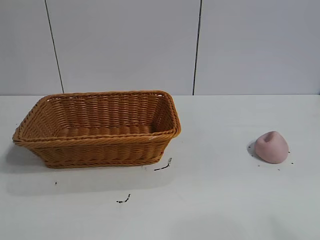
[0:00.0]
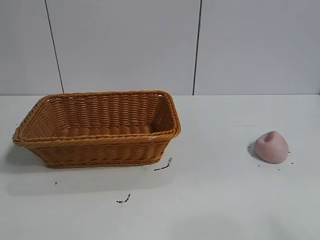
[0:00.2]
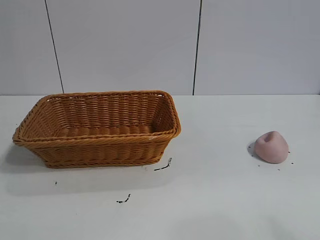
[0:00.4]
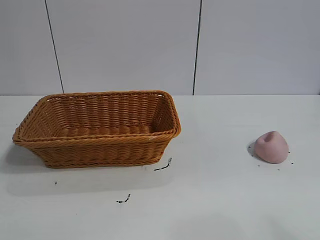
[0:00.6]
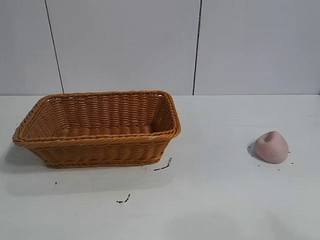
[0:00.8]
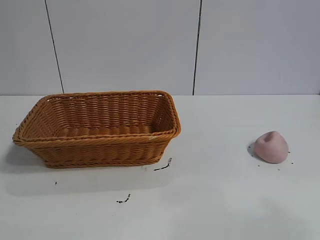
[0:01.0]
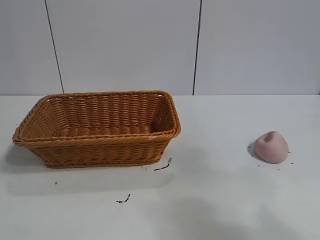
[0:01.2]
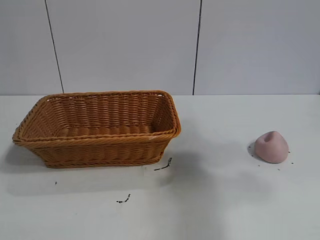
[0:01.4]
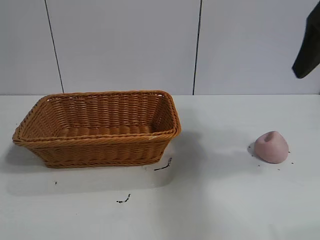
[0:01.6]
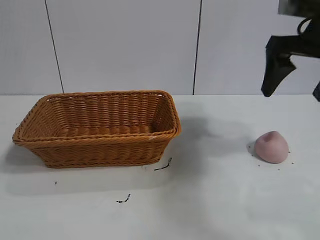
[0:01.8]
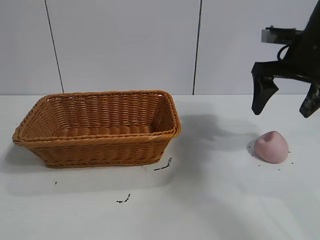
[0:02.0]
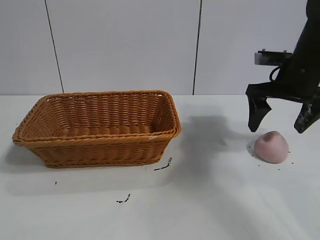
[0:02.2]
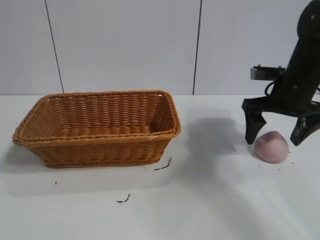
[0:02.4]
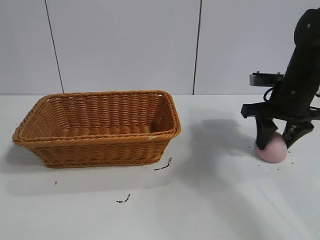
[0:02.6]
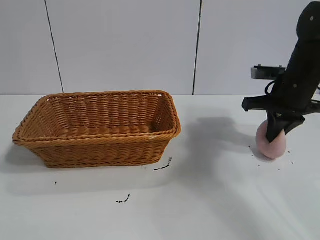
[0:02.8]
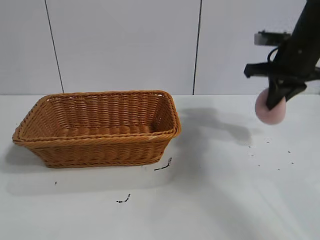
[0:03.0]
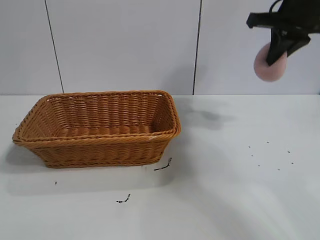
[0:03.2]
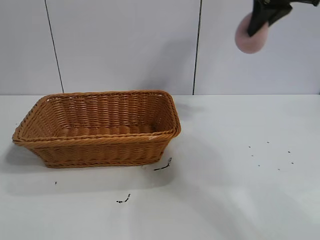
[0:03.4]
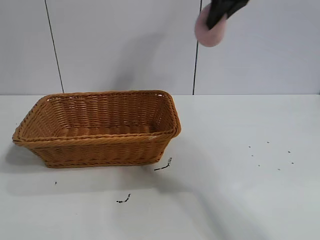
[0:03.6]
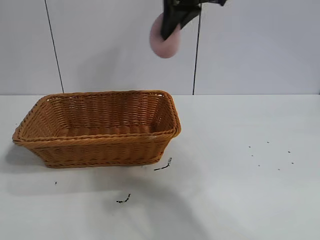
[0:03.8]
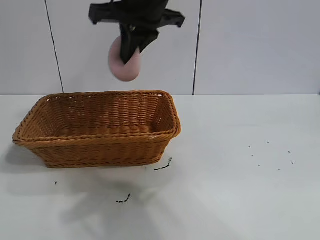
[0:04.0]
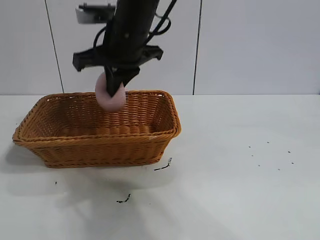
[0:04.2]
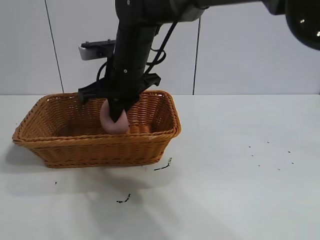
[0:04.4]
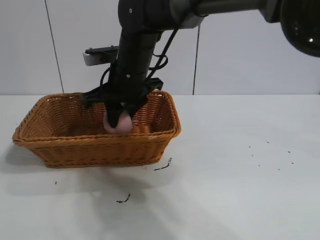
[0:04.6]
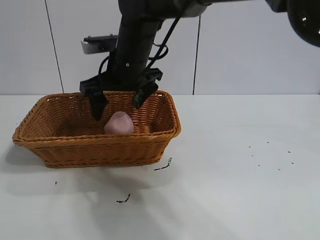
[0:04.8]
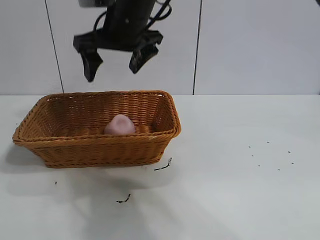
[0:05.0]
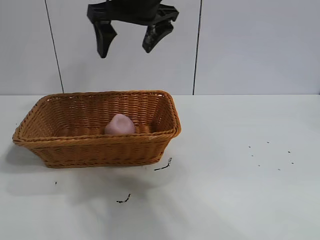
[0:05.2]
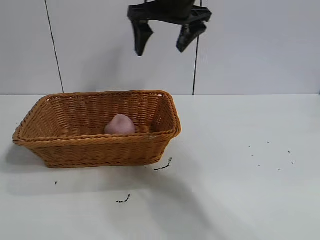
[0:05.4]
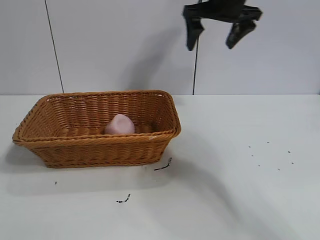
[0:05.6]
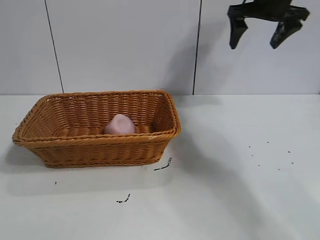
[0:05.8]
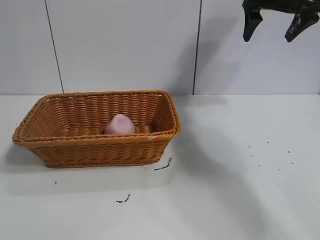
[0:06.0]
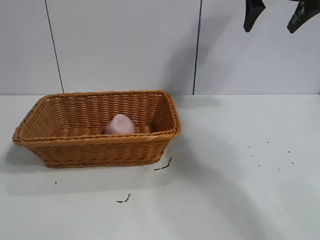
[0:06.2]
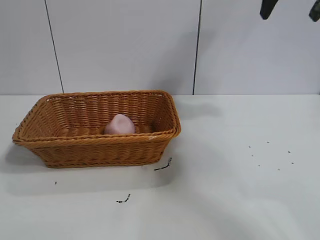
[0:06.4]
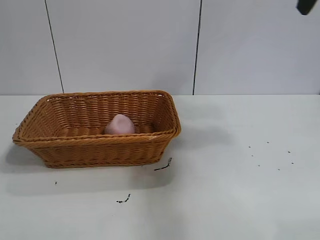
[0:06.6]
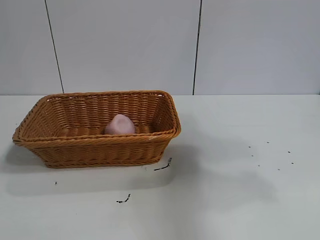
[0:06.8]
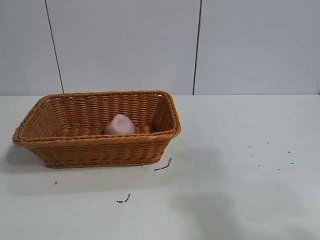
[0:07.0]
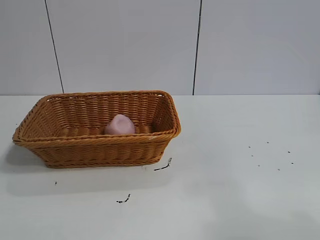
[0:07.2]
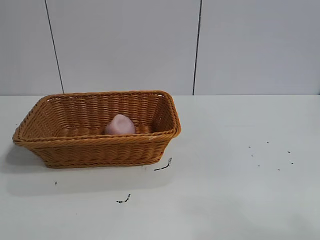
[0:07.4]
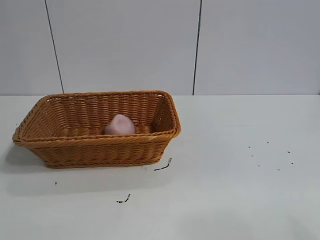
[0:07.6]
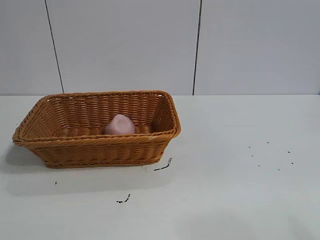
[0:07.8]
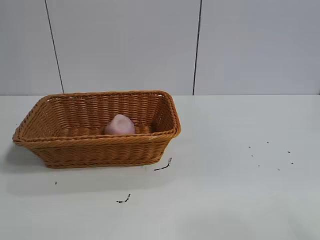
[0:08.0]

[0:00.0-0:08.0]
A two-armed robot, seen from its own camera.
Task of the whole recording: pick up the peach and put it into the basket.
Step, 0:00.8 to 0:02.8: Grasp the peach with right gripper.
Step, 0:03.0 to 0:05.0: Place the peach in the basket with right gripper.

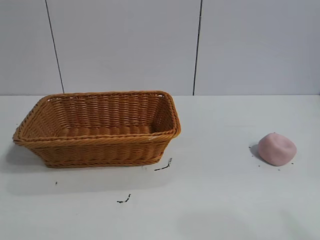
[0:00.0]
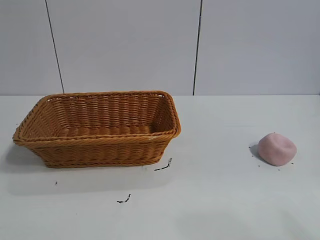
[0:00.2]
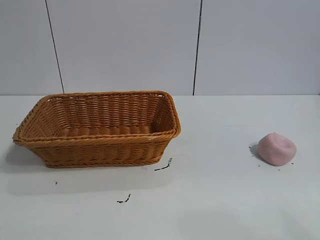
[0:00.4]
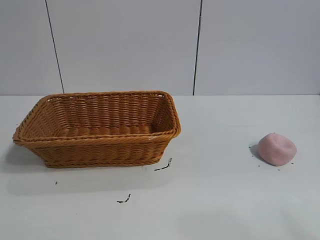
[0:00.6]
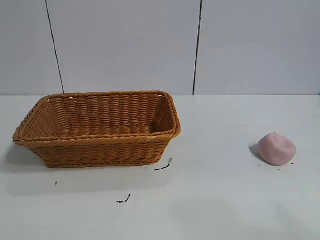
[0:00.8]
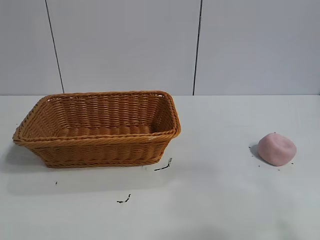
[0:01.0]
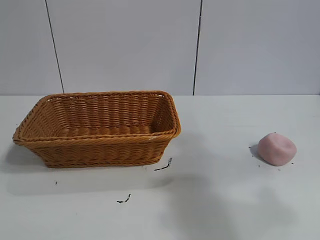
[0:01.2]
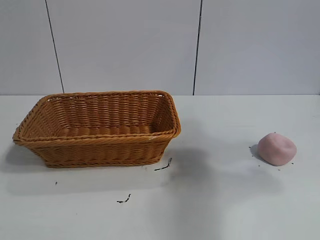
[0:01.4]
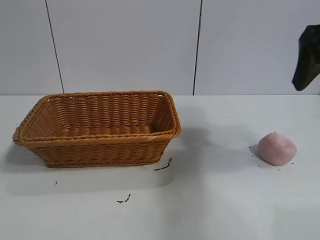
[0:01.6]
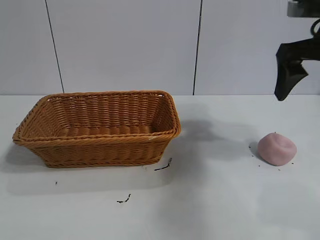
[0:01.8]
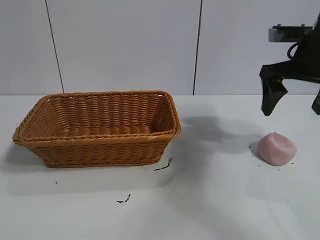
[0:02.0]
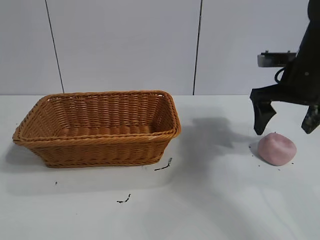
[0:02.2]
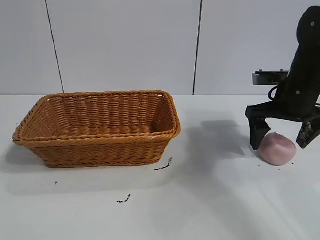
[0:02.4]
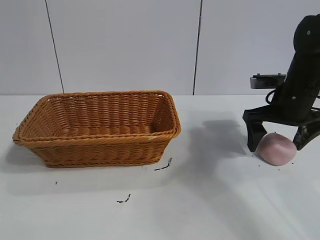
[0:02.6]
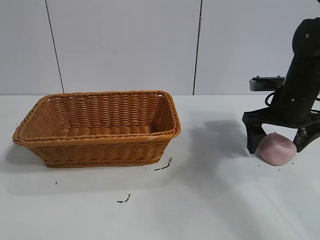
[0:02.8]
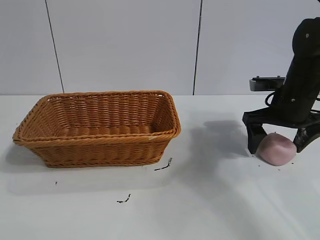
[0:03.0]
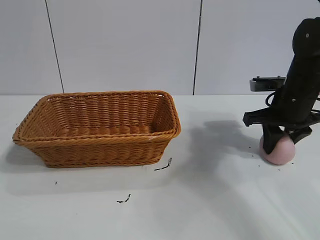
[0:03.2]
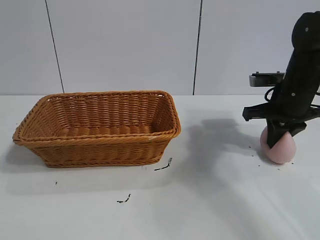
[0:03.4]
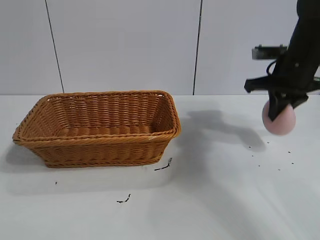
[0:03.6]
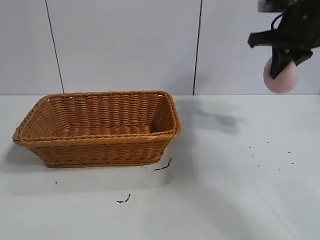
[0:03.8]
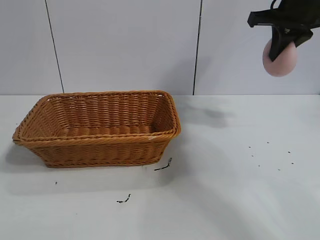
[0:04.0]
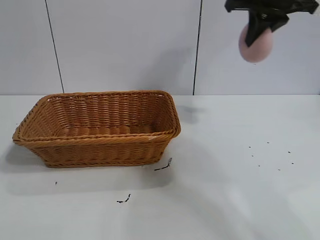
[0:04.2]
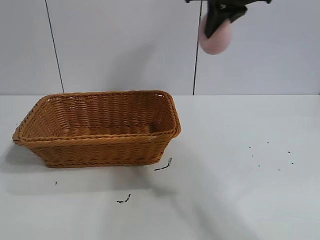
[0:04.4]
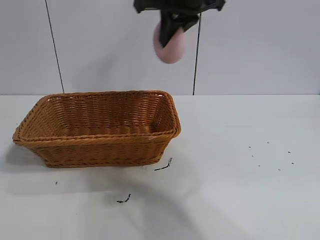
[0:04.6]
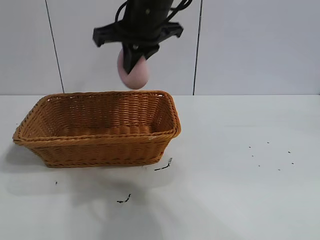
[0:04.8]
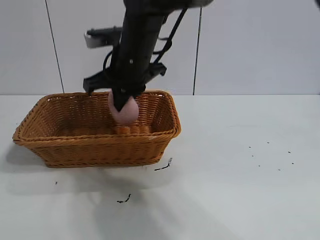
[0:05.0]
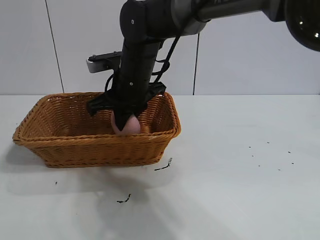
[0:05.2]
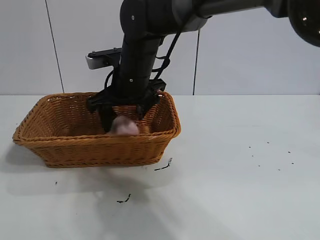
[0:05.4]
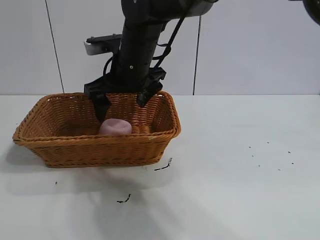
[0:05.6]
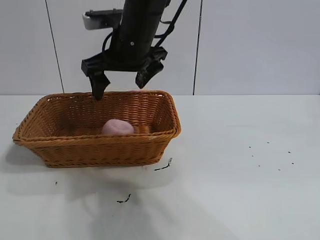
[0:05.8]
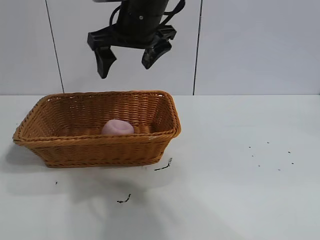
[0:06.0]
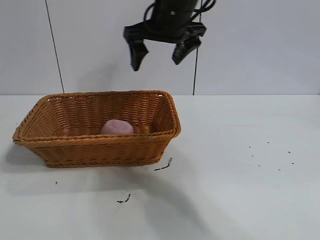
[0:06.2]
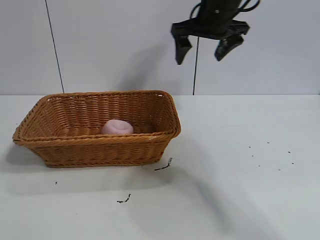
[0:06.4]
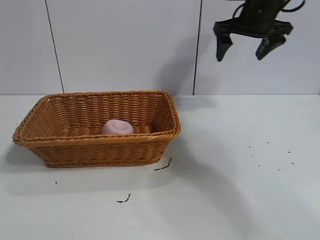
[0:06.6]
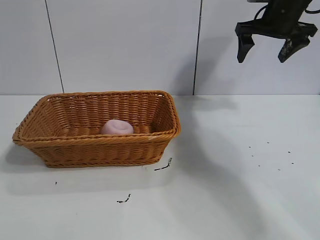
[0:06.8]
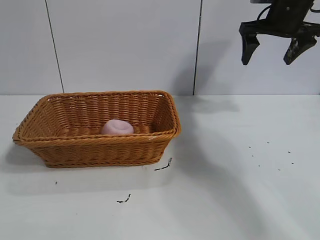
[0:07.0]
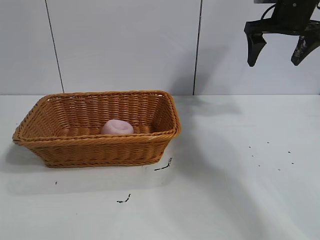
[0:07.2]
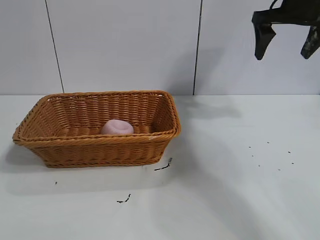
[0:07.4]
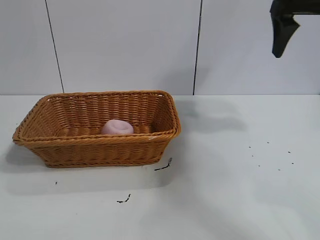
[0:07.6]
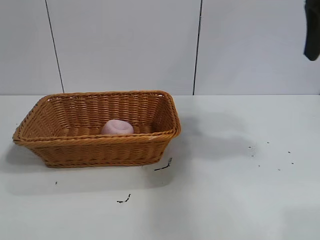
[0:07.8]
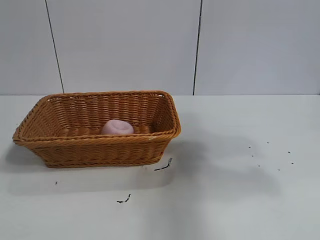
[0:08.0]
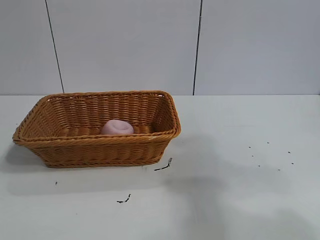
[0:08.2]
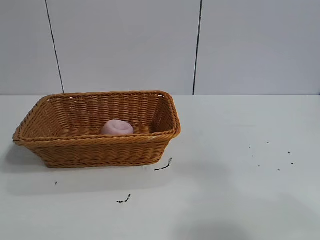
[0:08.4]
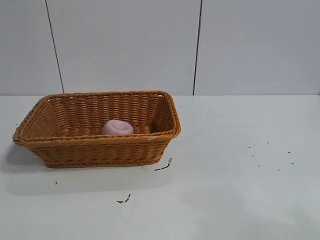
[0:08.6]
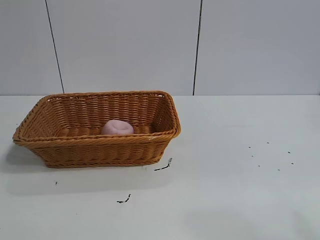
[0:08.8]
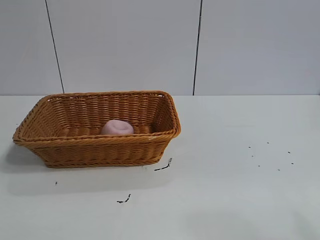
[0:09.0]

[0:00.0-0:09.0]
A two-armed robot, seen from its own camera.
Task of the whole recording: pick up the peach and put it into the basket.
Step, 0:00.8 to 0:03.2: Grasp the peach with right gripper.
Step, 0:03.4 to 0:05.4: Place the peach in the basket with right gripper.

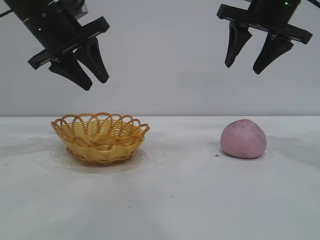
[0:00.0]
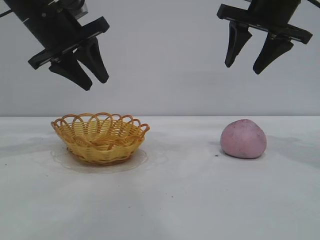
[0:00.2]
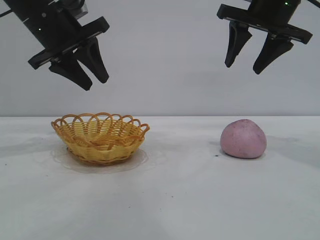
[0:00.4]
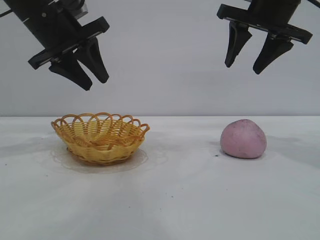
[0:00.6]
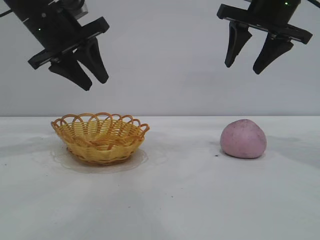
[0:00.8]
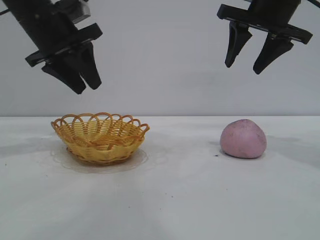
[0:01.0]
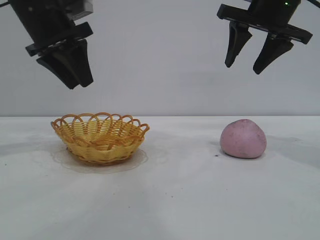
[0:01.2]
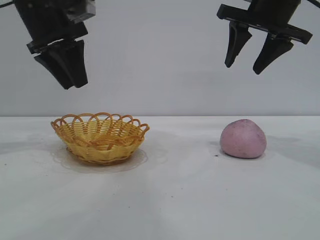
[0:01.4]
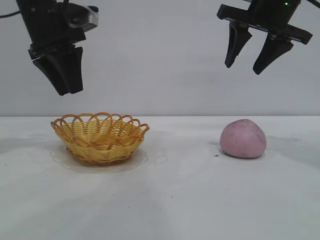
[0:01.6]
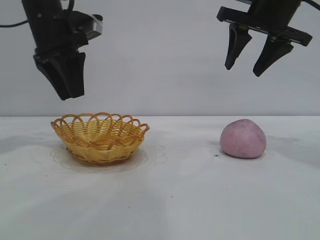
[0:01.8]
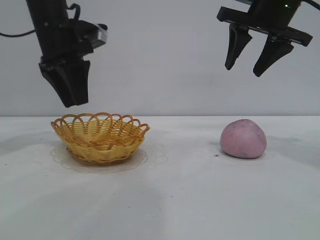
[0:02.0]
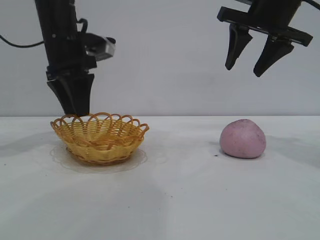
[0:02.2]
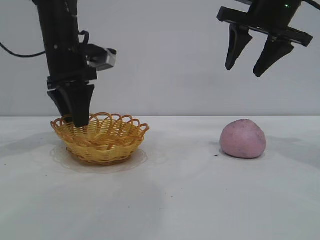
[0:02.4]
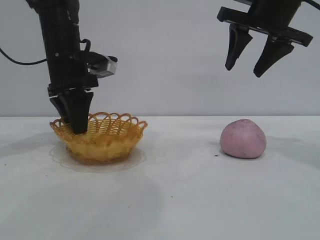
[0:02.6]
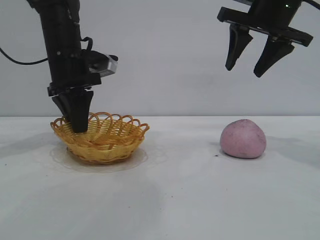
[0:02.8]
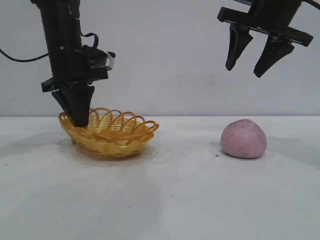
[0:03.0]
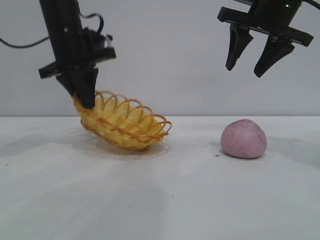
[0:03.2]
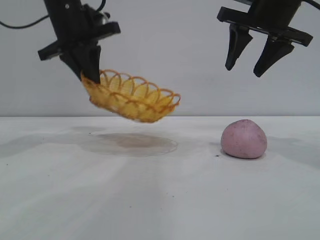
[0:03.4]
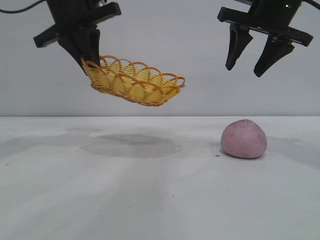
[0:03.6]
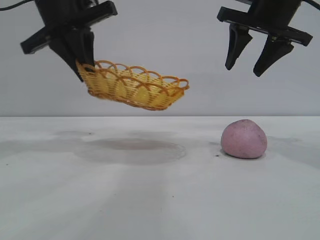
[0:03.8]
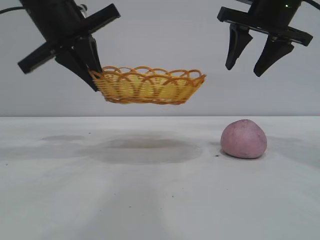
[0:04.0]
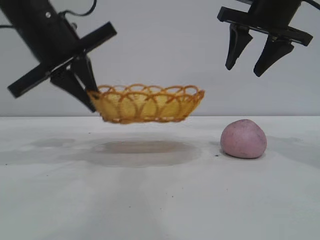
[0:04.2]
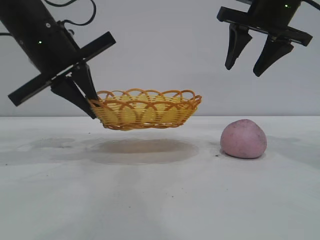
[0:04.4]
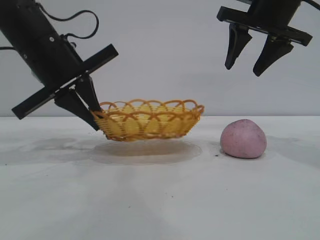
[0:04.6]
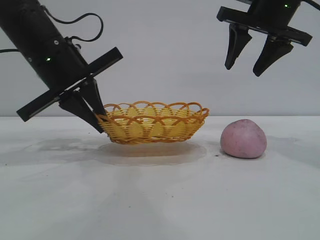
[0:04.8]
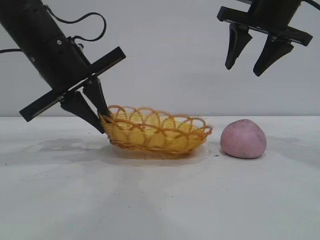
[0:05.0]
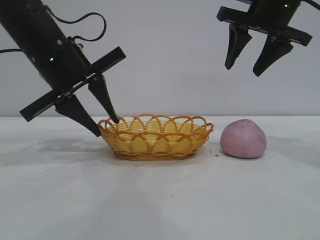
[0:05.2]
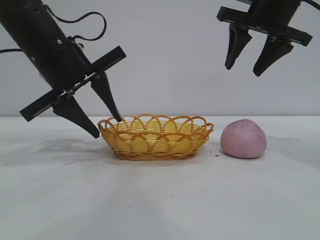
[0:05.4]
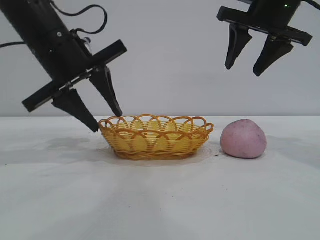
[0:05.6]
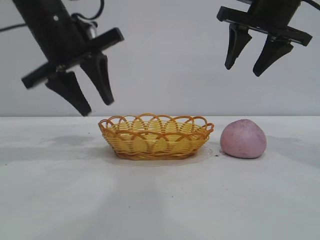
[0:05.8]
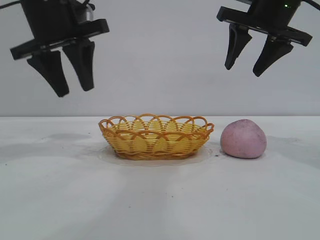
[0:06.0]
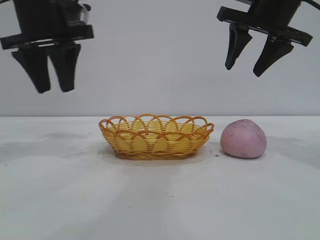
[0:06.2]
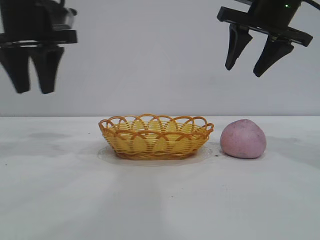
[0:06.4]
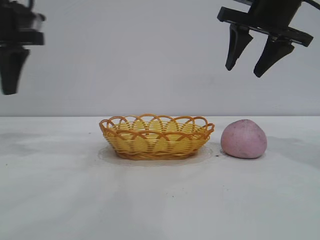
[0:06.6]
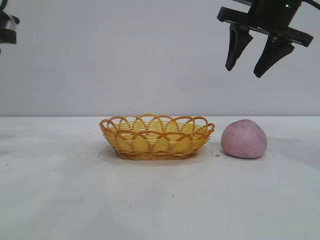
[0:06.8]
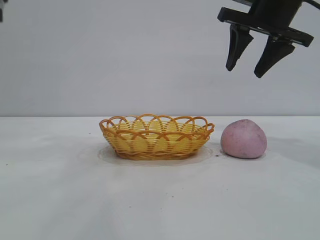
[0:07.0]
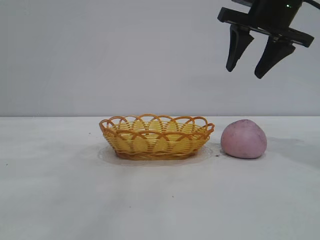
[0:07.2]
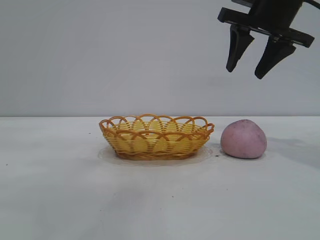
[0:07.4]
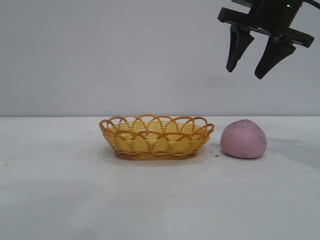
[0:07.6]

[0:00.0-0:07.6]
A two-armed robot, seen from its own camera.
Task of the whole recording: pick up the peach and put it into the basket.
Step, 0:00.0 to 0:05.8: Move the basket to the center of view.
